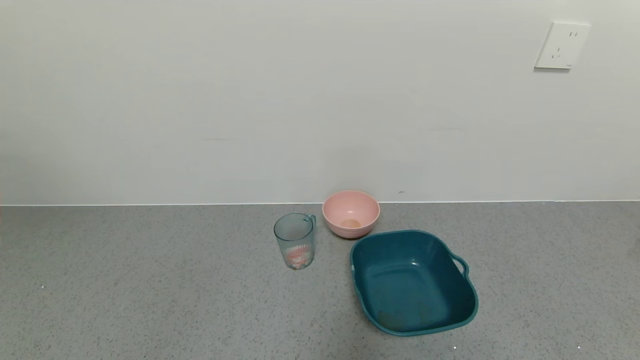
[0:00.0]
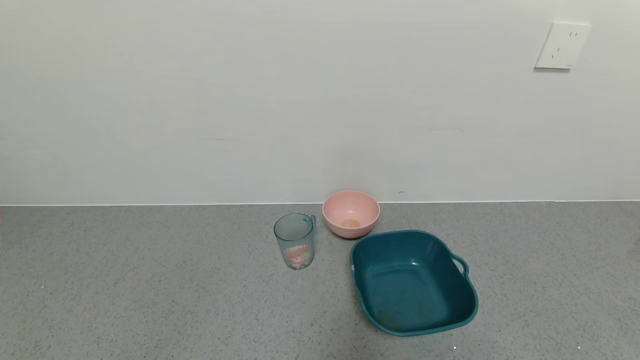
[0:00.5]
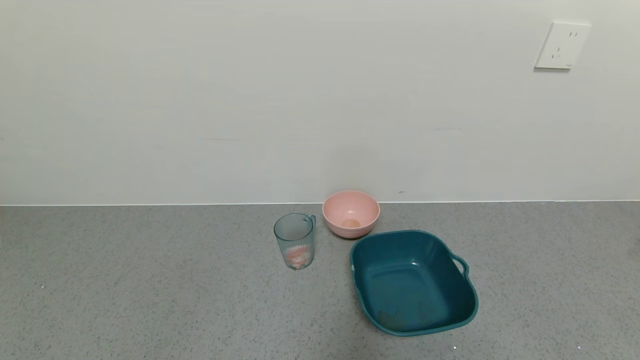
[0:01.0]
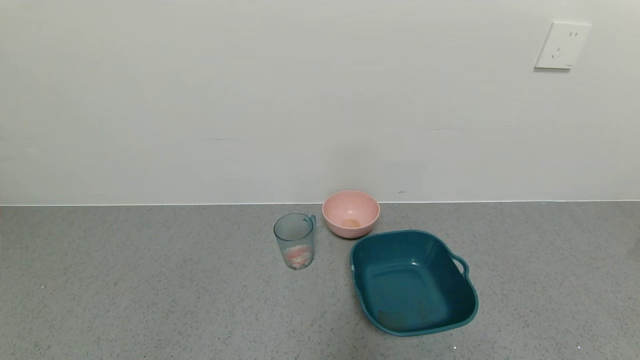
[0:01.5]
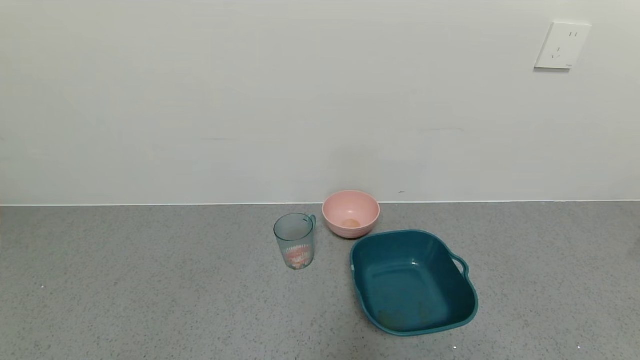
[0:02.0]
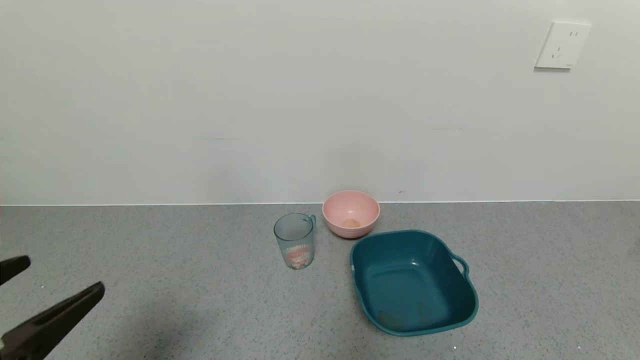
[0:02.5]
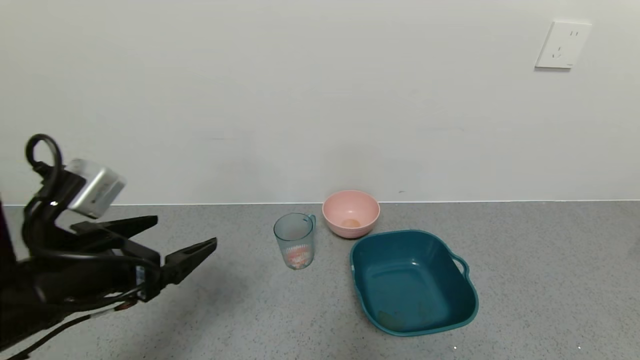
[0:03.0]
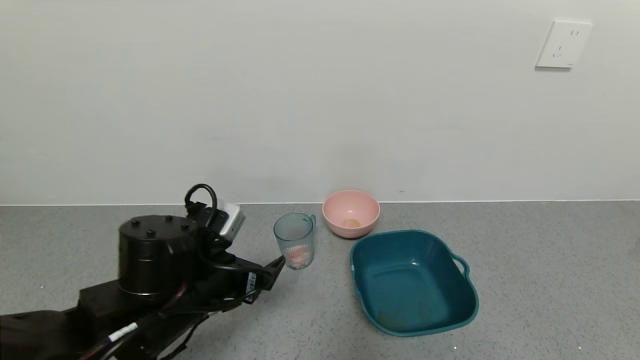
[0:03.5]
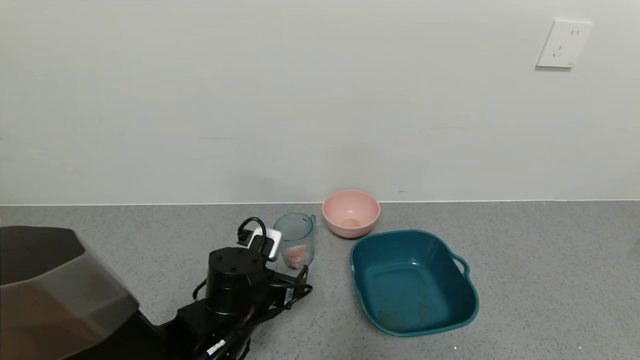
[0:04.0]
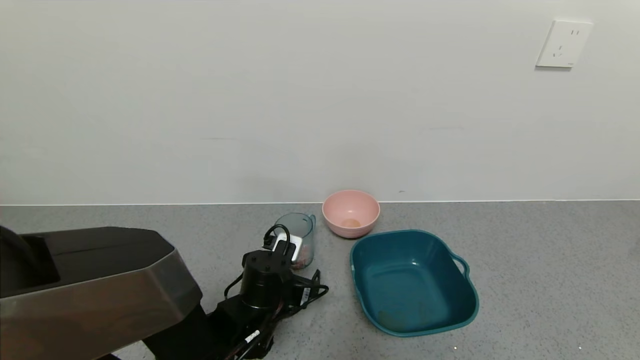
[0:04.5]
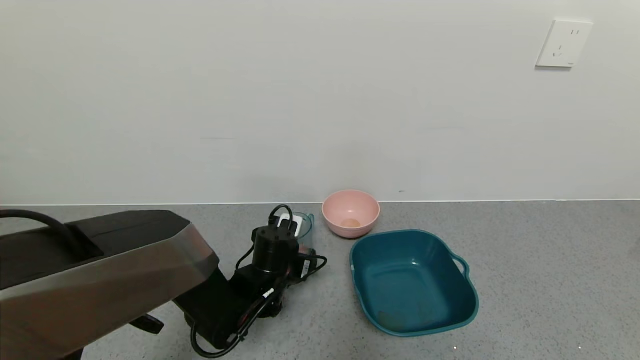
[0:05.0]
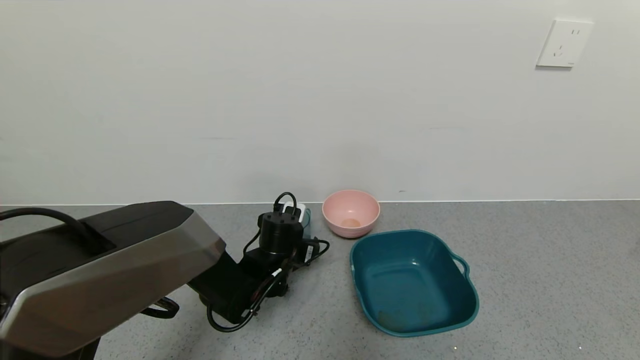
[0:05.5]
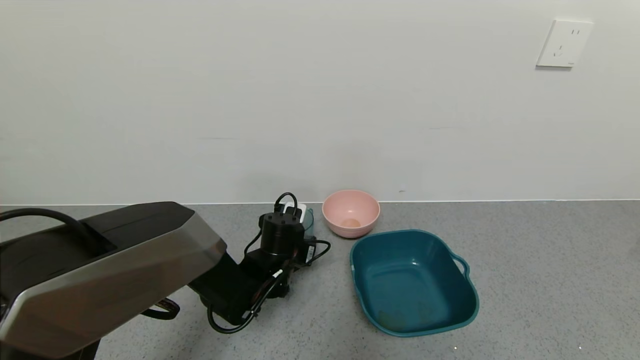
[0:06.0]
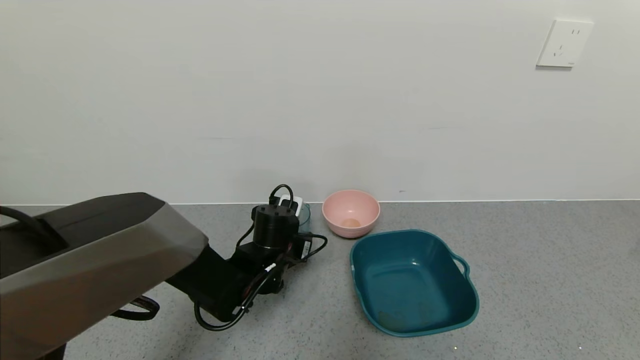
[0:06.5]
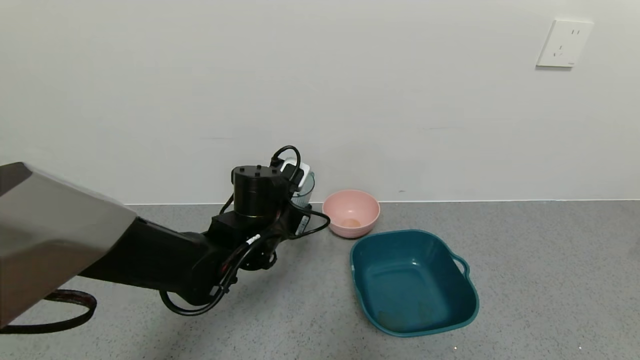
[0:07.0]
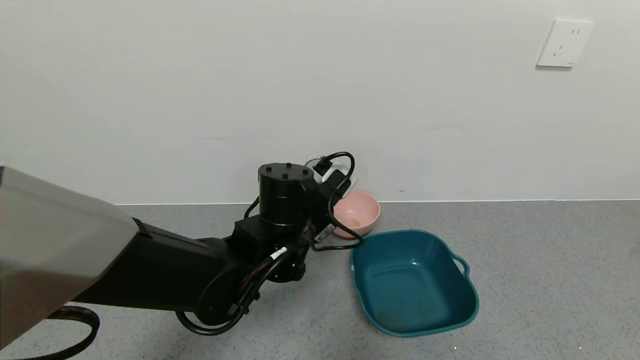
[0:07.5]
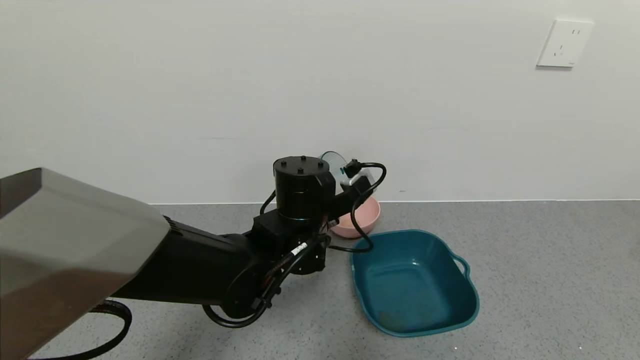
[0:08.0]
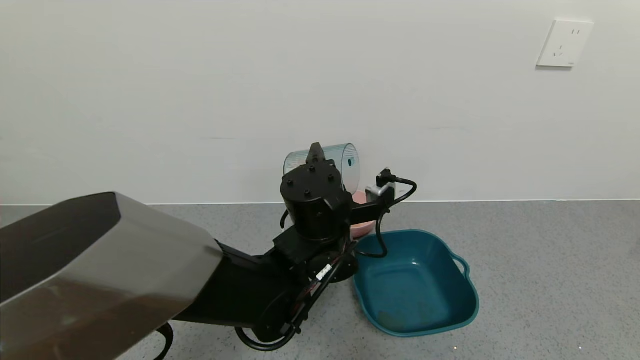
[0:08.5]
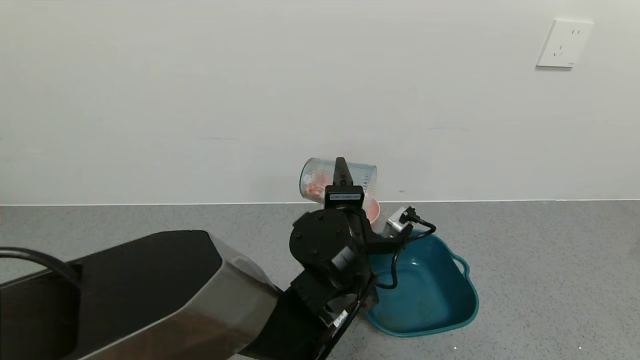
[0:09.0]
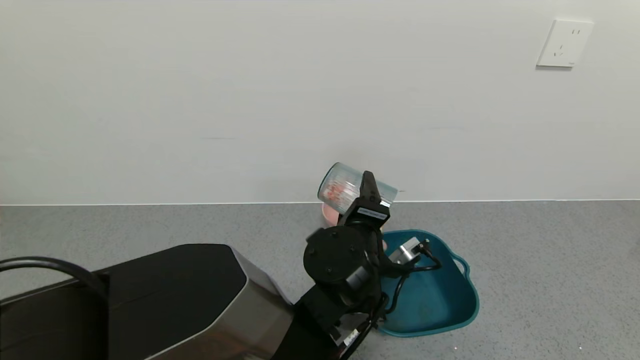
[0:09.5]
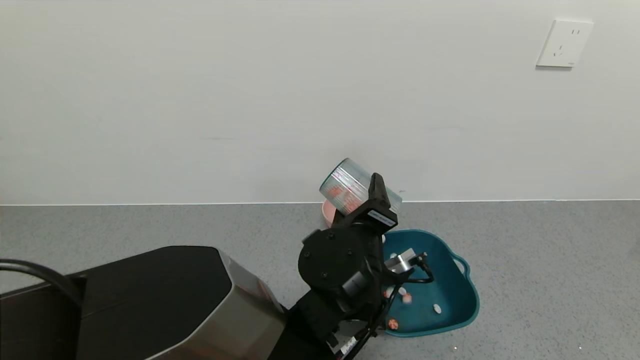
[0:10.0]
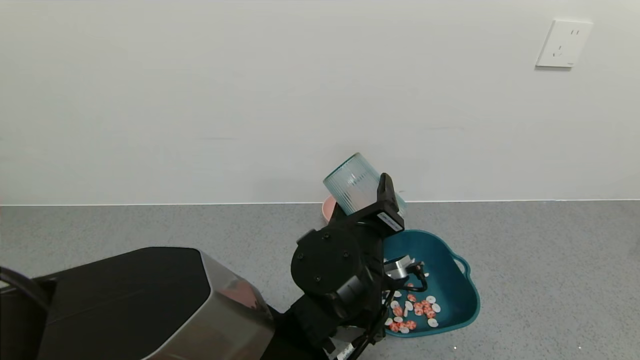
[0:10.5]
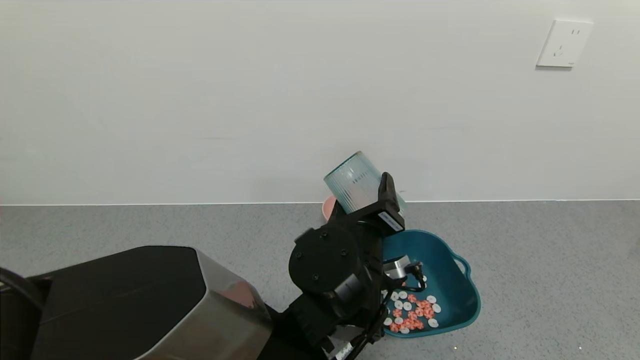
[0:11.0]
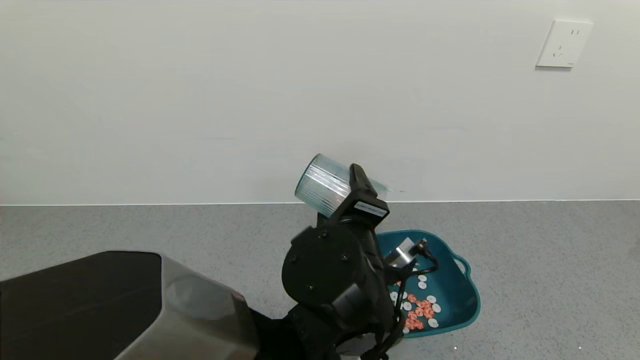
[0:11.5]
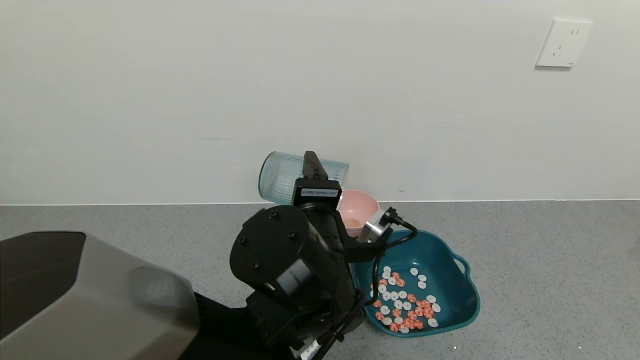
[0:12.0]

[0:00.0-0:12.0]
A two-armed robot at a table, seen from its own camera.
Task of the whole recording: use a gripper to pick up the cup and pour the solid into a bowl or tray.
Step, 0:00.0 to 0:05.5: Grasp the glass of shrimp with the left gripper.
Step, 0:06.0 to 0:11.5: Pour the shrimp beans into the green bowl with the left gripper.
0:02.0 to 0:04.0: The left gripper heads forward and to the right, covering roughly 30 cm.
0:04.0 to 0:06.0: The left gripper goes about 10 cm forward, and closes up.
0:06.0 to 0:08.0: The left gripper moves upward, to the right and backward, approximately 15 cm.
0:08.0 to 0:10.0: The left gripper heads to the right and backward, covering some 10 cm.
0:10.0 to 0:12.0: The left gripper changes place by roughly 5 cm.

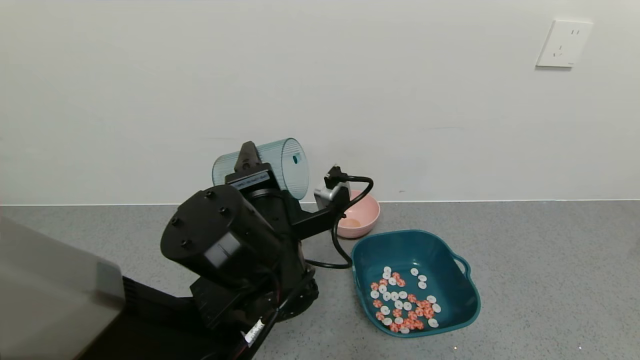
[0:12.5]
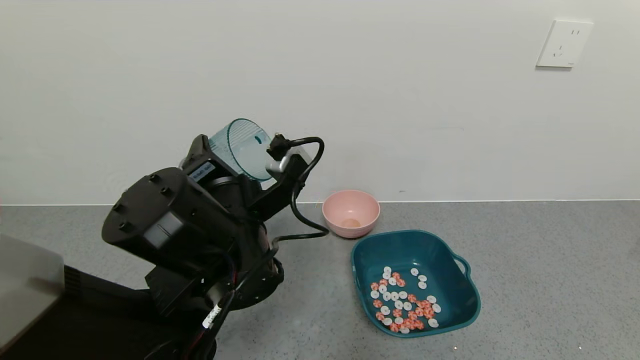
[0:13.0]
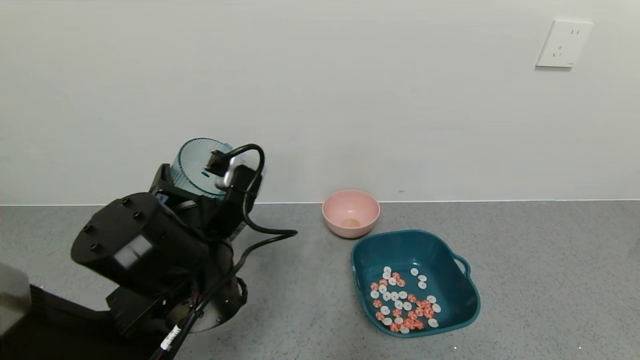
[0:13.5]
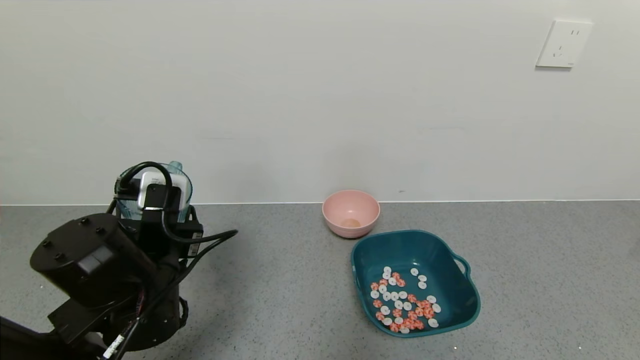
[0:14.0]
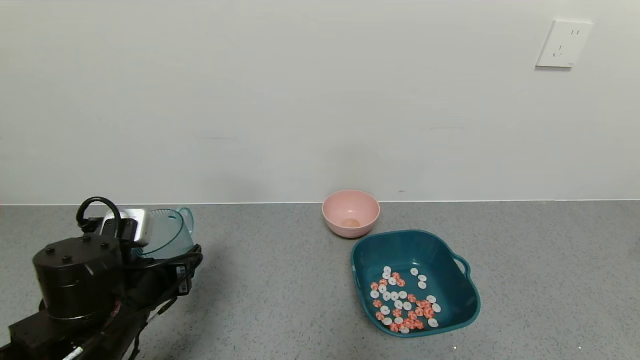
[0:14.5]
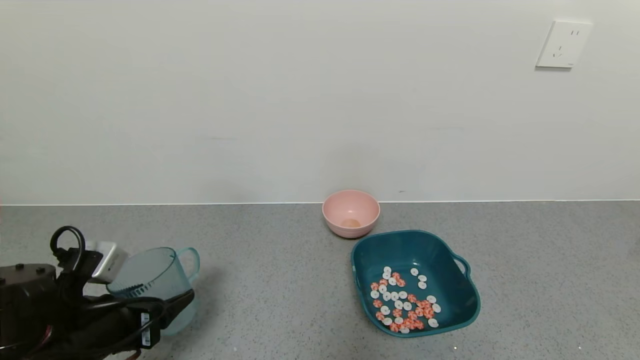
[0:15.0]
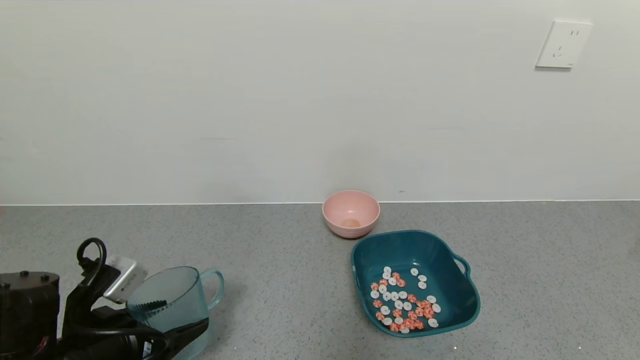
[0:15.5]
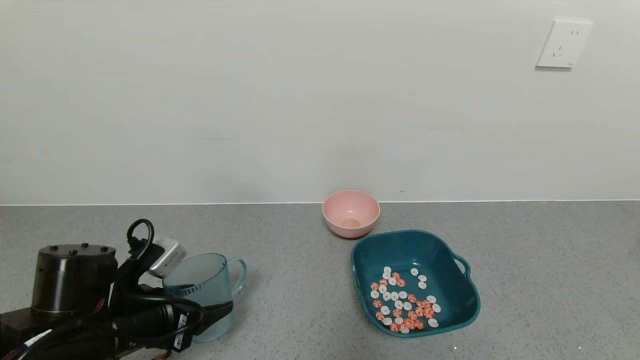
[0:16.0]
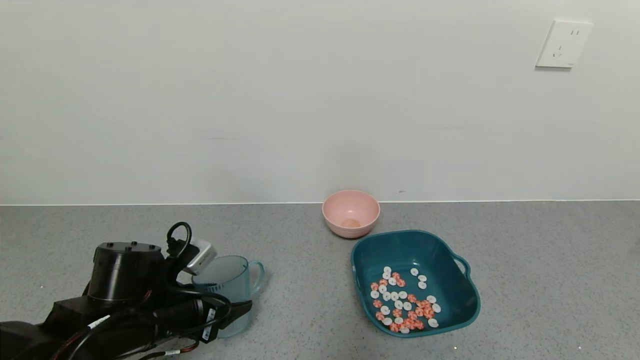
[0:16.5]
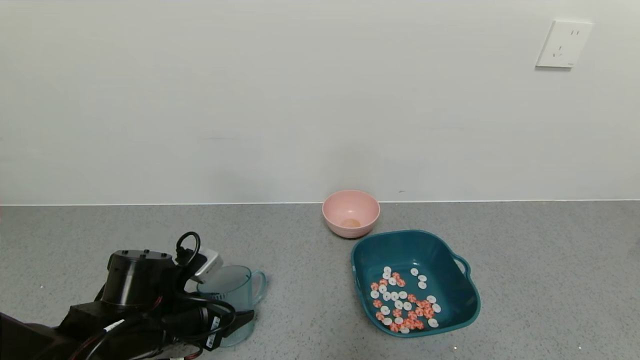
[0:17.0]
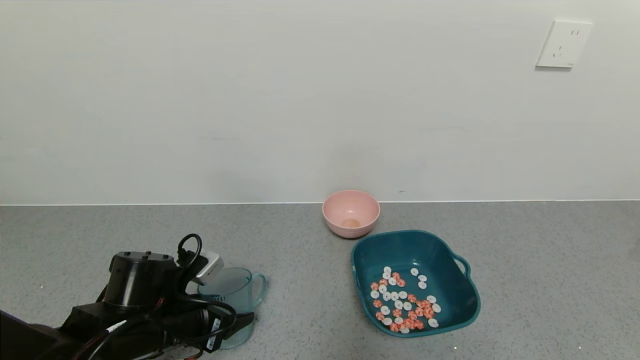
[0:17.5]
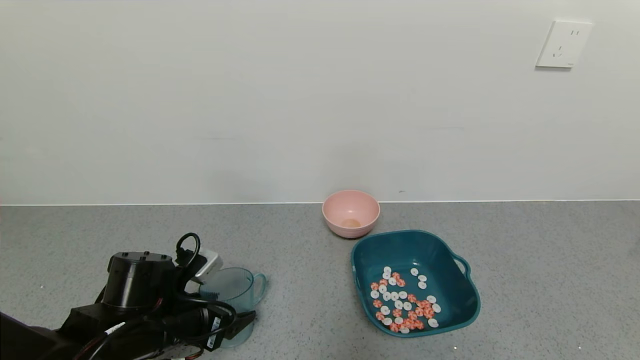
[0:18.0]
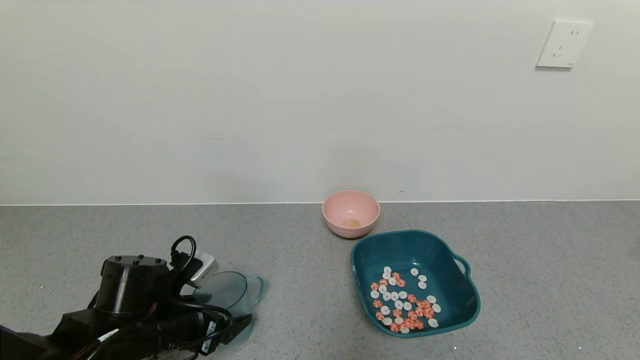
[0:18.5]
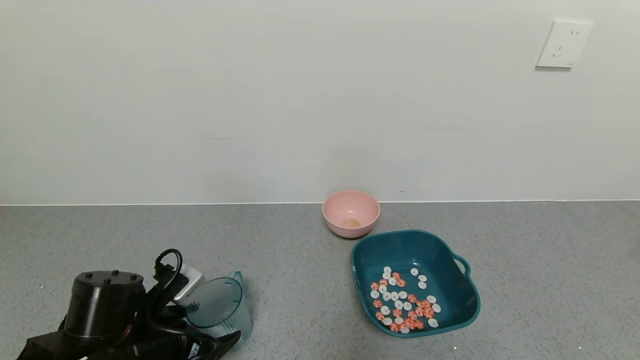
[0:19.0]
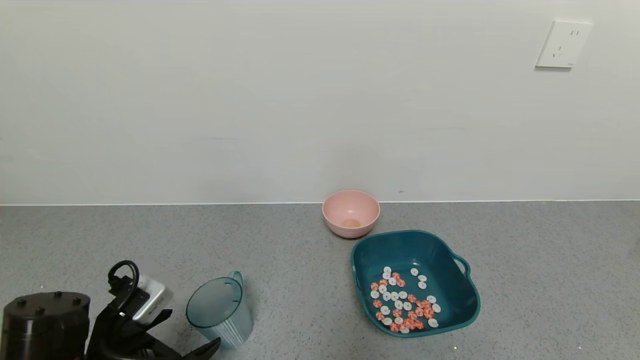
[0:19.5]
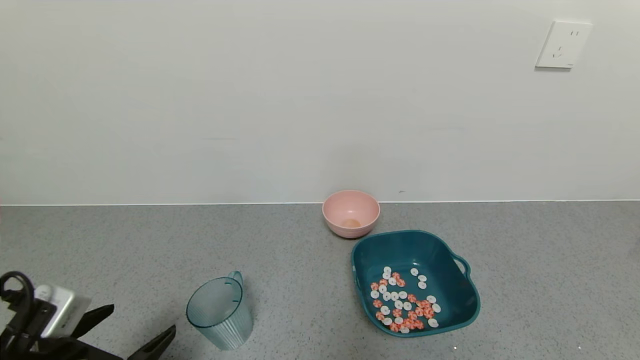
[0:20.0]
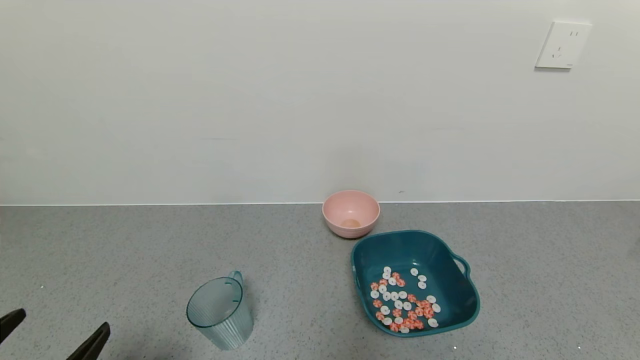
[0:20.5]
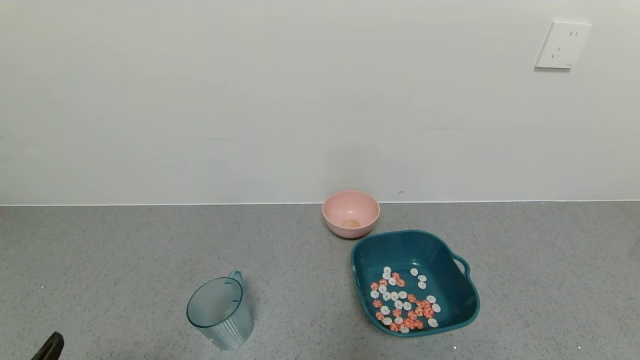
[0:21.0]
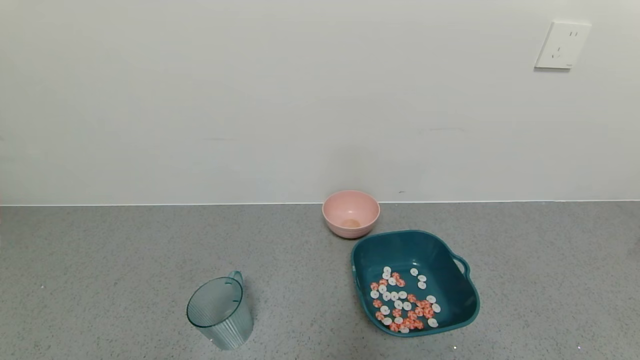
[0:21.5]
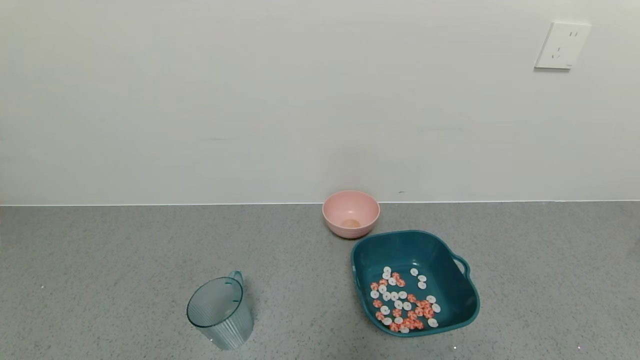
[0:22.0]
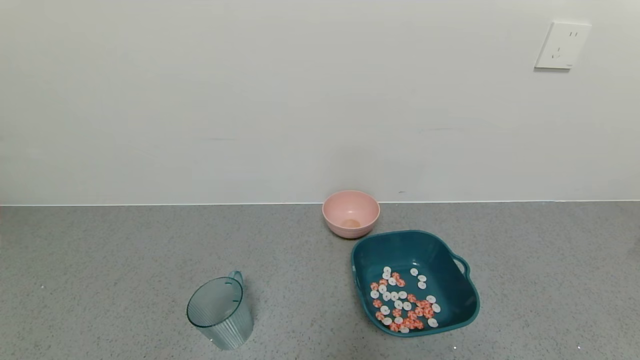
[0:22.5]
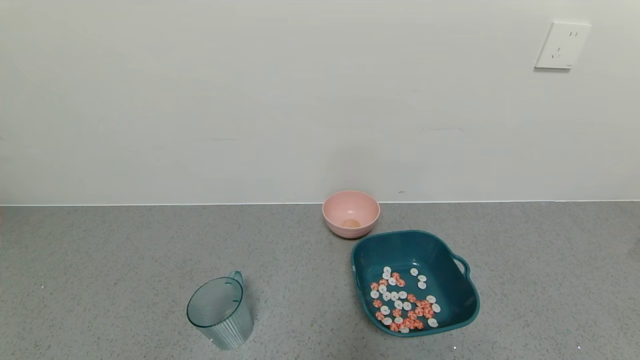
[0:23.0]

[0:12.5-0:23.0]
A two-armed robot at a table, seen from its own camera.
Task of the whole recording: use a gripper to pick up the cup and pour the solid into a bowl or tray.
Step, 0:12.5 to 0:19.0: Place the glass cup with the left gripper.
0:12.5 to 0:14.5: The left gripper travels to the left by approximately 15 cm.
0:16.5 to 0:19.0: The left gripper opens its fingers.
0:19.0 to 0:21.0: The left gripper shifts approximately 15 cm backward.
